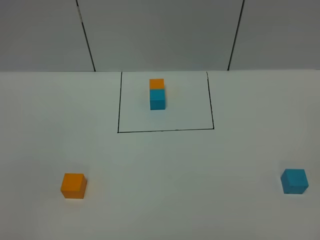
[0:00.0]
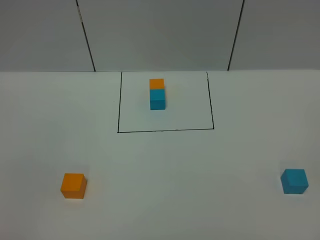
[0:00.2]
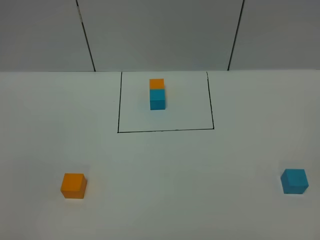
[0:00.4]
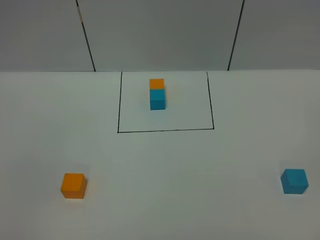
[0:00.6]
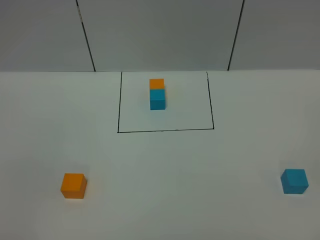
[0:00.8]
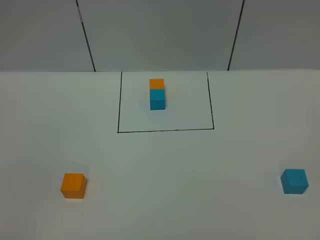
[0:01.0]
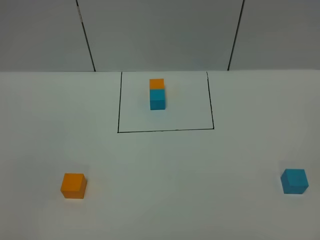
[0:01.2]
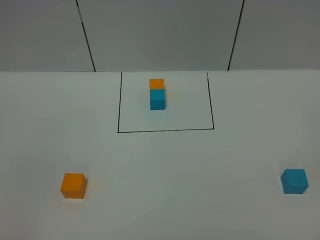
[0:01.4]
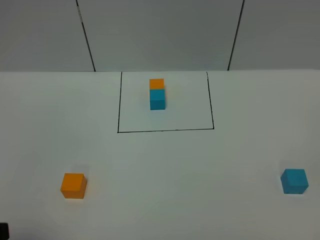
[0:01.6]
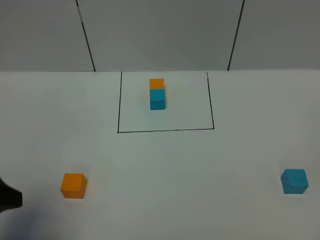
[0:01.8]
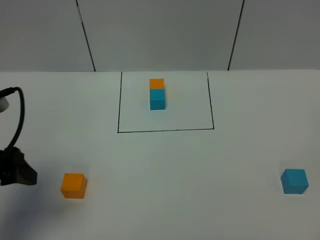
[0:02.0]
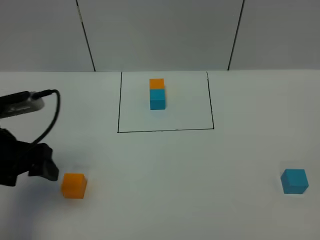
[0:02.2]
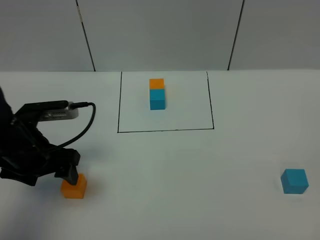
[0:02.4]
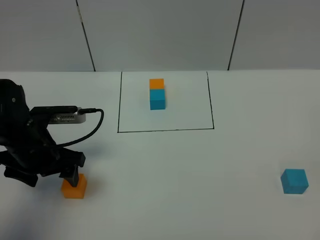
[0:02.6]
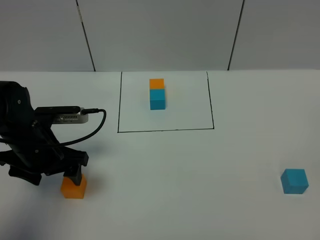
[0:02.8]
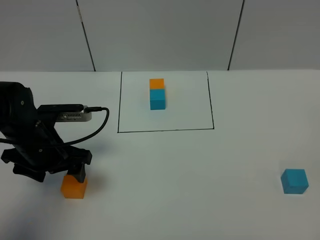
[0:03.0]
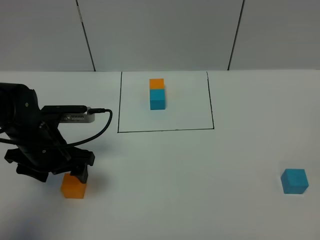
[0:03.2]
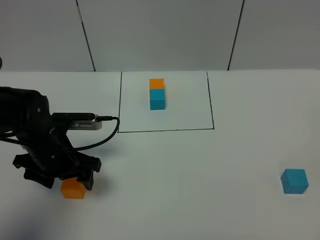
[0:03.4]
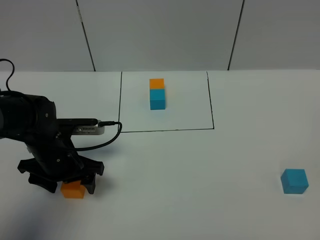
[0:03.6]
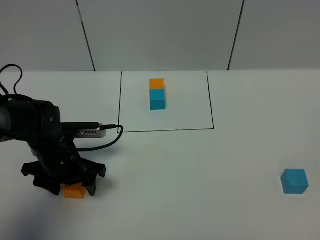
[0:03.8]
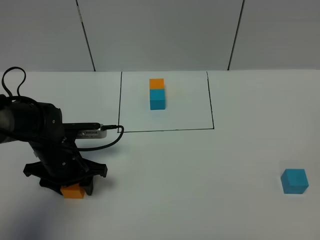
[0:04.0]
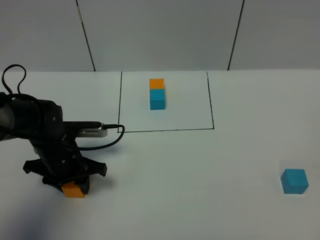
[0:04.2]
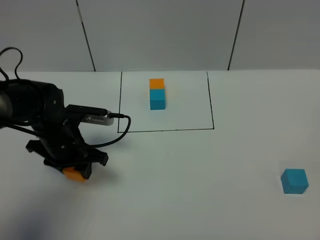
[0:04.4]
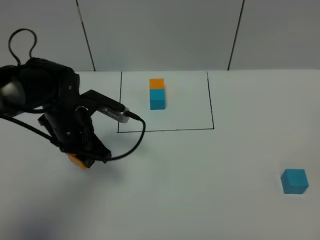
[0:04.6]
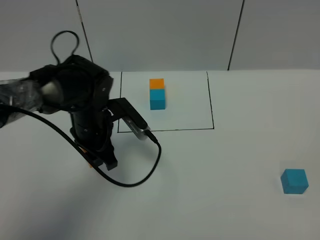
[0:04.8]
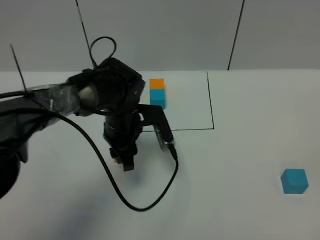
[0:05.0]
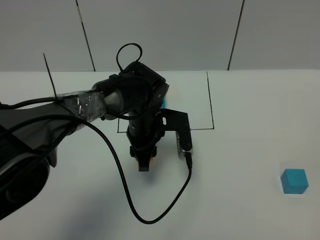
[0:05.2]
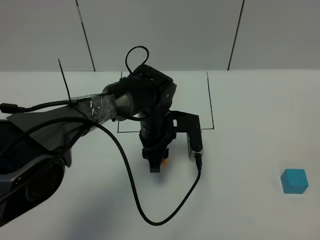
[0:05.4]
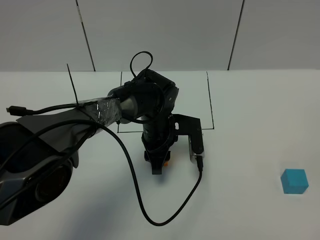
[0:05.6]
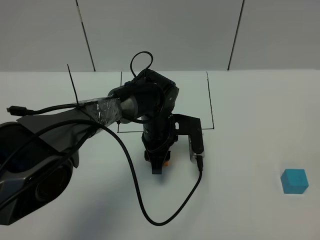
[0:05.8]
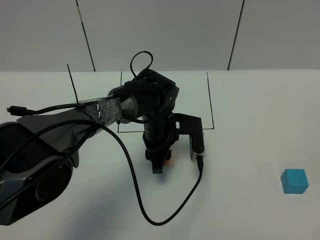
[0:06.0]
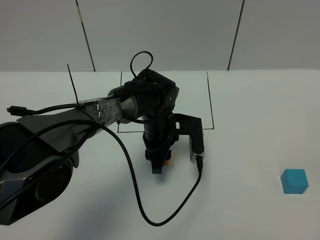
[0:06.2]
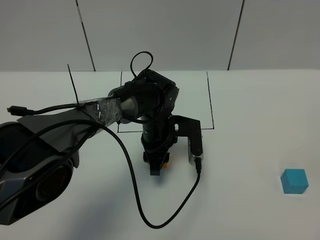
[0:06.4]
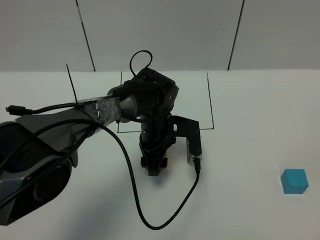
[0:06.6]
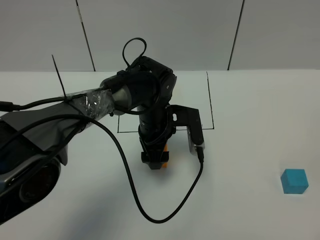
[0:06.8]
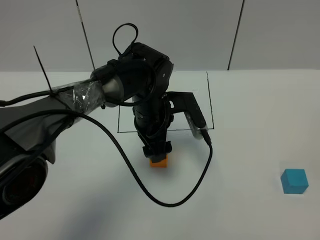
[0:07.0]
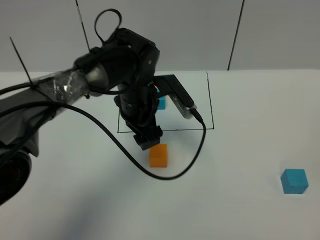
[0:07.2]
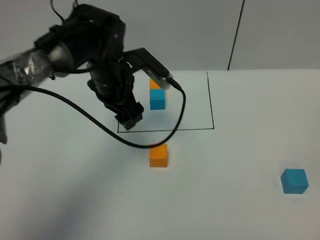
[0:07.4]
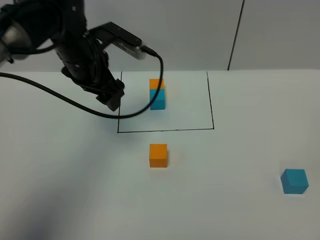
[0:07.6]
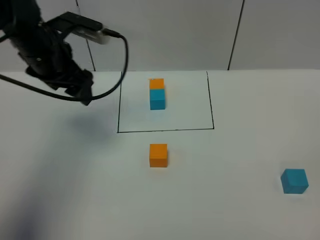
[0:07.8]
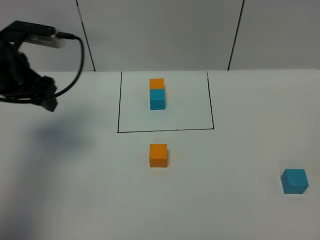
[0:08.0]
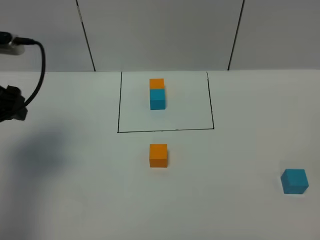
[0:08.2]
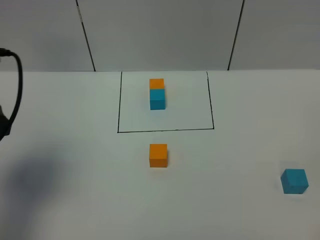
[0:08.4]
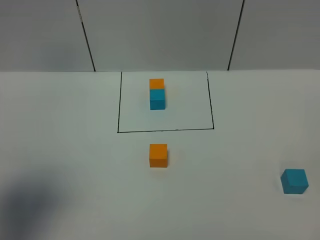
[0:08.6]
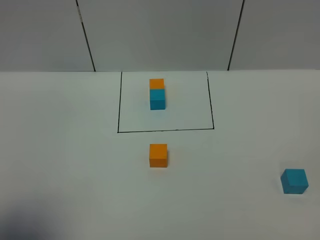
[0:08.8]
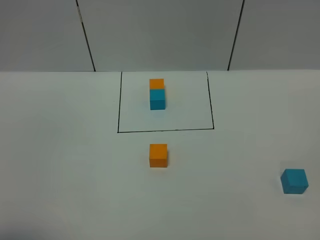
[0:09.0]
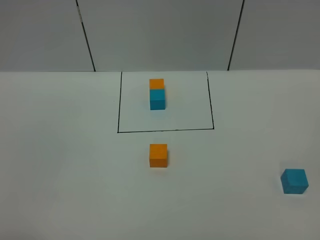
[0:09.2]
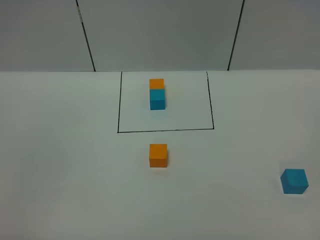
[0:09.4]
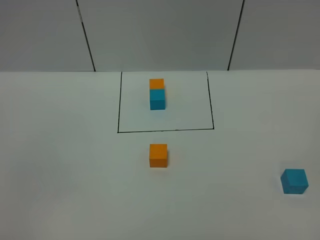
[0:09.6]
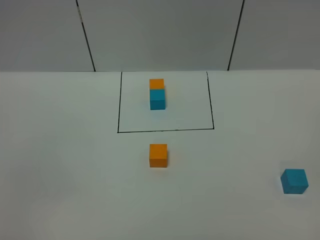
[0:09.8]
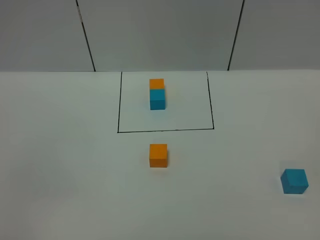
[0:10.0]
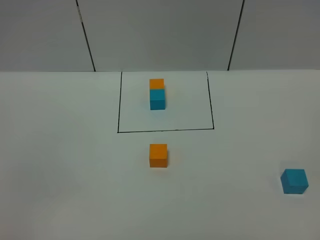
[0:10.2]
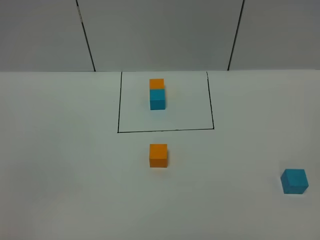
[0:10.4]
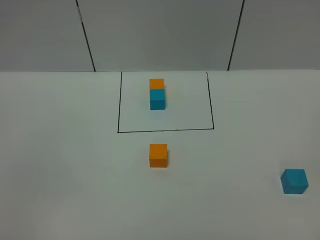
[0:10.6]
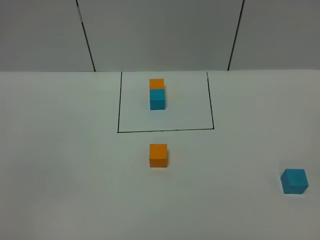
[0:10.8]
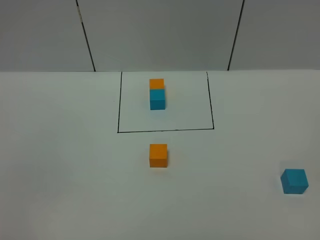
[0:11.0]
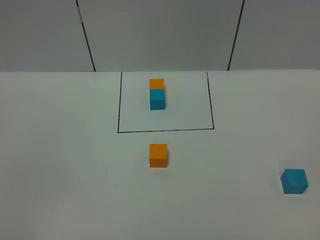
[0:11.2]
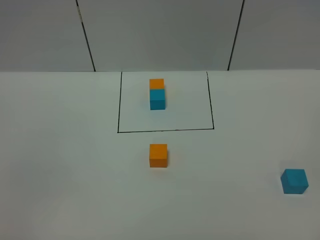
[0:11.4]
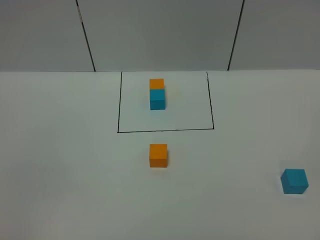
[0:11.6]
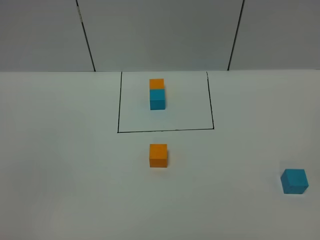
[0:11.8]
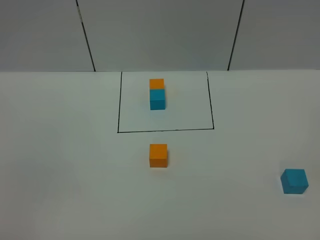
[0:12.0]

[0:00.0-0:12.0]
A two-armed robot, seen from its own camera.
Task of the whole recording: According to the building block template in front, assemble the scattered blocks together.
Step, 0:01.6 to 0:07.8: Put the orange cube in the center of the table.
0:01.6 to 0:03.0: The left gripper shifts approximately 25 cm forward and downward.
0:03.0 to 0:04.4: The left gripper closes up.
0:04.4 to 0:06.0: The left gripper heads to the right, covering some 20 cm.
0:06.0 to 0:07.6: The left gripper heads upward and to the left, covering some 20 cm, and opens.
0:07.6 to 0:09.0: The left gripper shifts about 40 cm backward and to the left.
0:10.4 to 0:12.0: Neither gripper changes place.

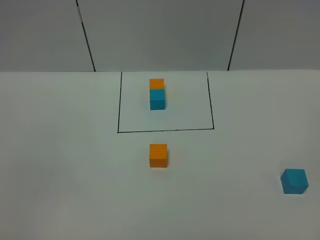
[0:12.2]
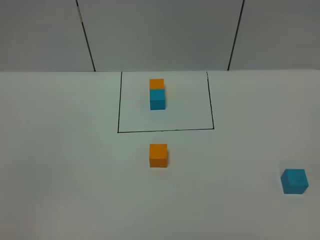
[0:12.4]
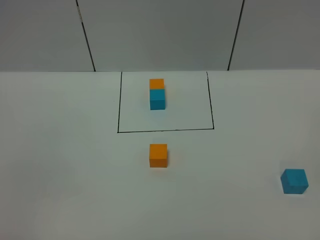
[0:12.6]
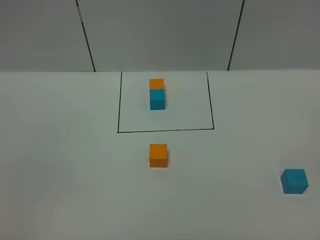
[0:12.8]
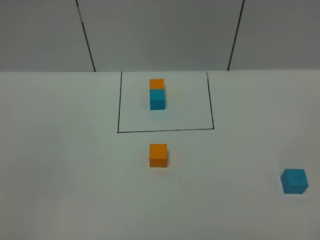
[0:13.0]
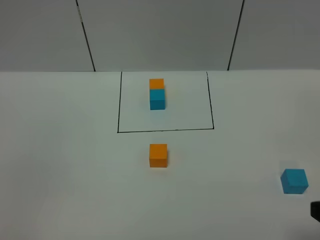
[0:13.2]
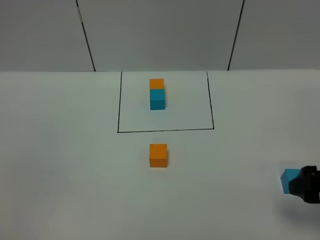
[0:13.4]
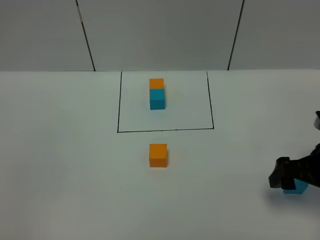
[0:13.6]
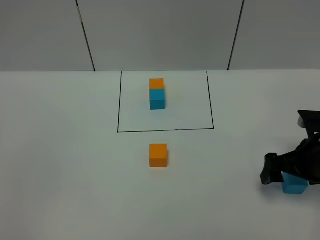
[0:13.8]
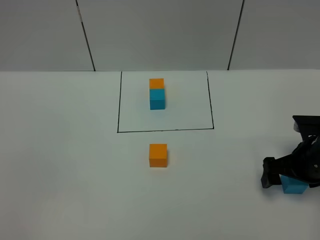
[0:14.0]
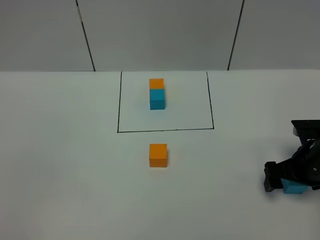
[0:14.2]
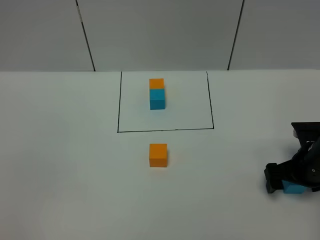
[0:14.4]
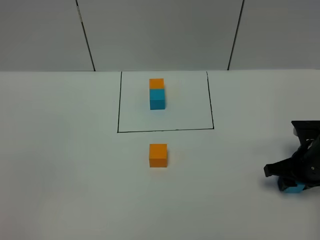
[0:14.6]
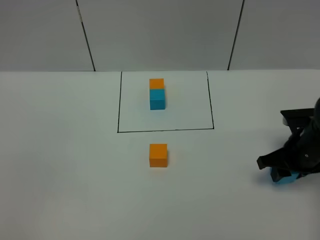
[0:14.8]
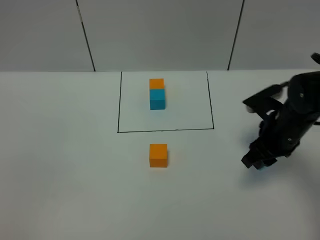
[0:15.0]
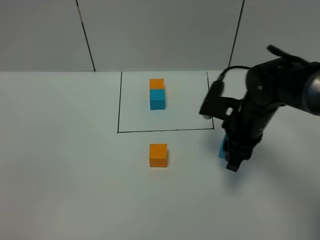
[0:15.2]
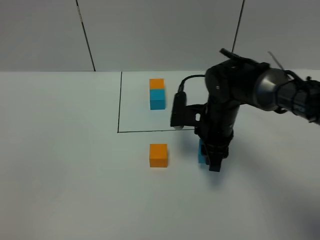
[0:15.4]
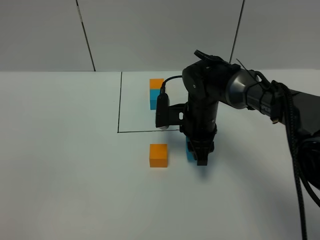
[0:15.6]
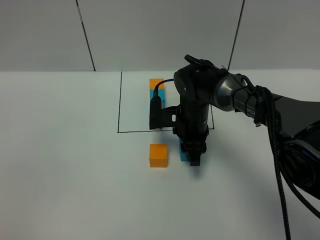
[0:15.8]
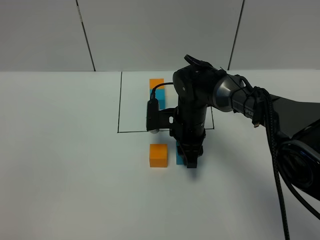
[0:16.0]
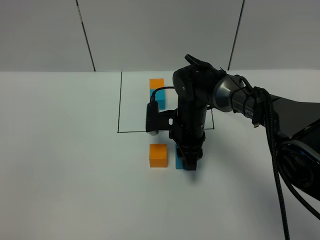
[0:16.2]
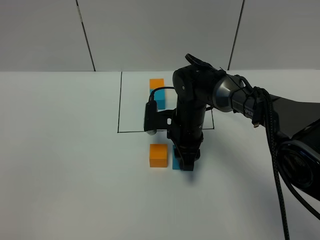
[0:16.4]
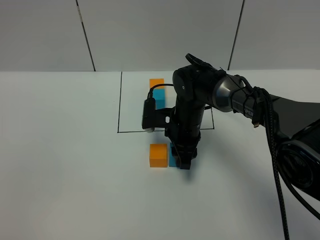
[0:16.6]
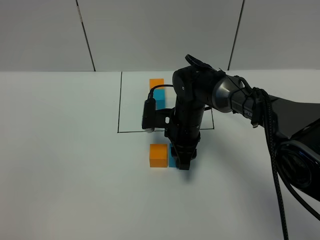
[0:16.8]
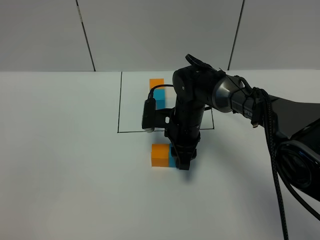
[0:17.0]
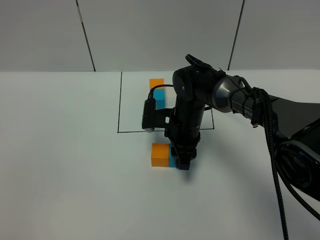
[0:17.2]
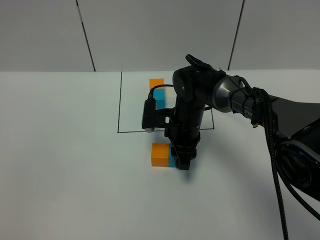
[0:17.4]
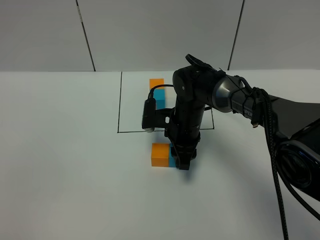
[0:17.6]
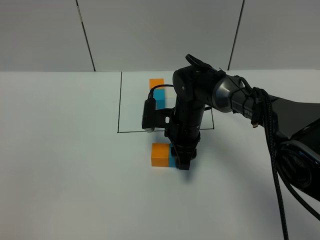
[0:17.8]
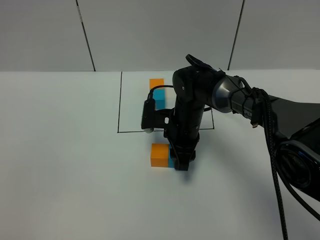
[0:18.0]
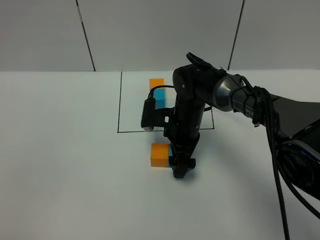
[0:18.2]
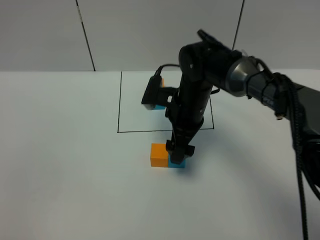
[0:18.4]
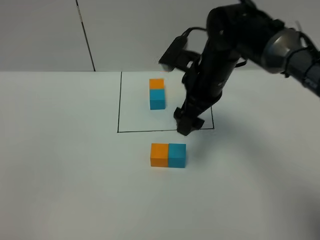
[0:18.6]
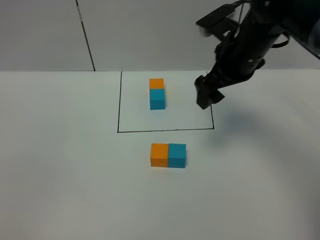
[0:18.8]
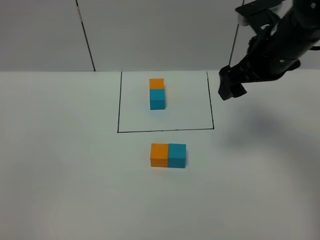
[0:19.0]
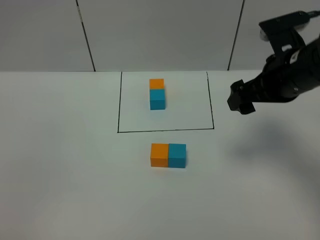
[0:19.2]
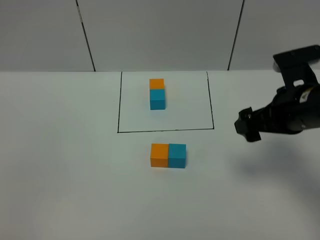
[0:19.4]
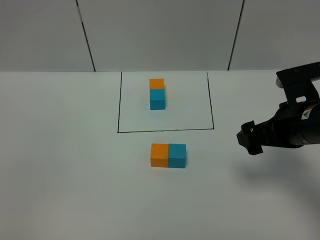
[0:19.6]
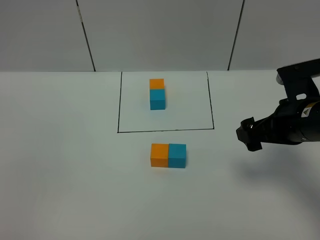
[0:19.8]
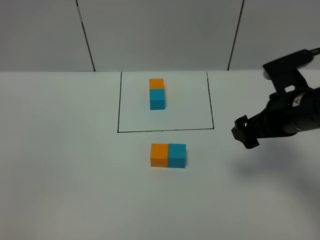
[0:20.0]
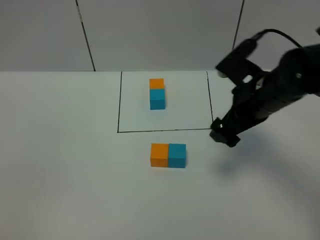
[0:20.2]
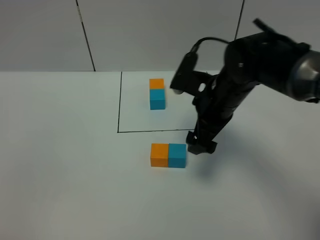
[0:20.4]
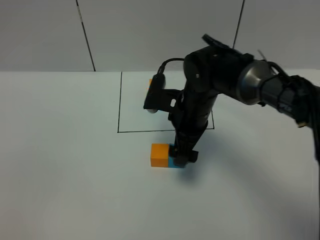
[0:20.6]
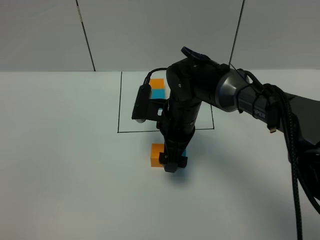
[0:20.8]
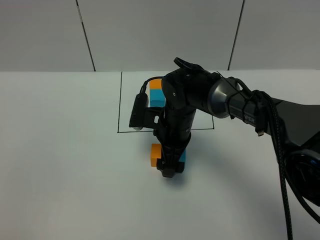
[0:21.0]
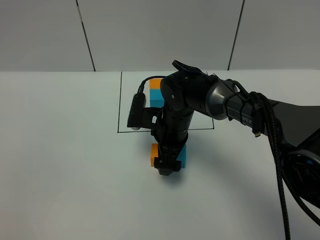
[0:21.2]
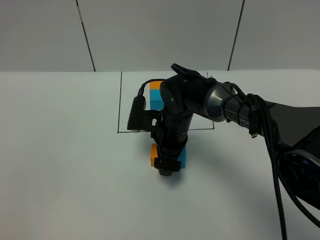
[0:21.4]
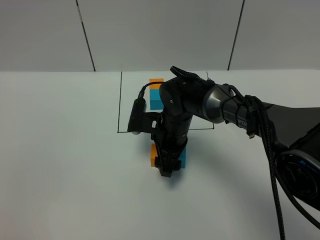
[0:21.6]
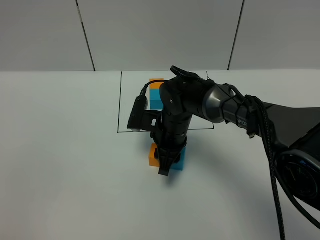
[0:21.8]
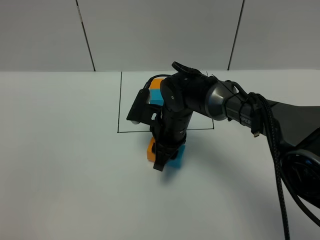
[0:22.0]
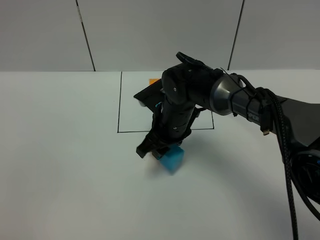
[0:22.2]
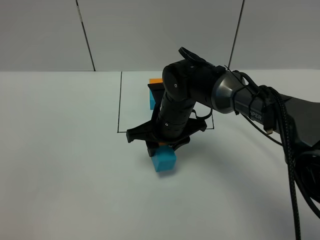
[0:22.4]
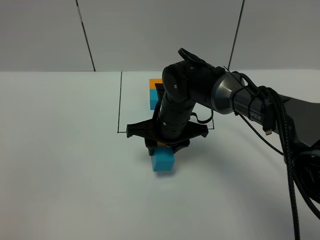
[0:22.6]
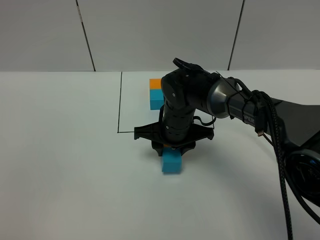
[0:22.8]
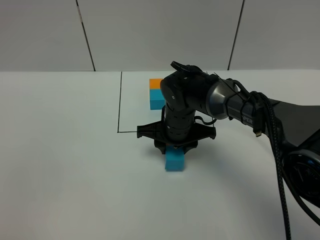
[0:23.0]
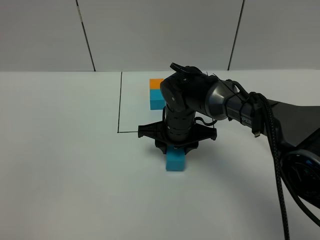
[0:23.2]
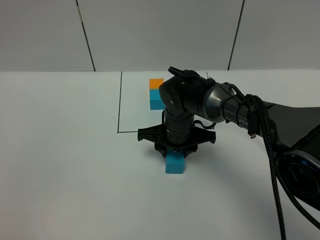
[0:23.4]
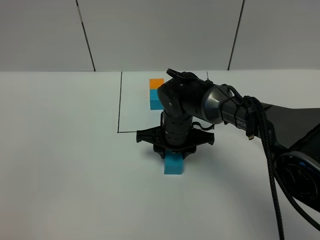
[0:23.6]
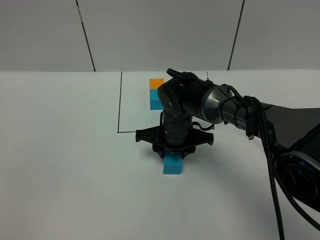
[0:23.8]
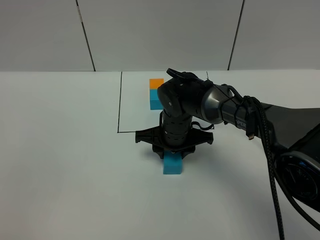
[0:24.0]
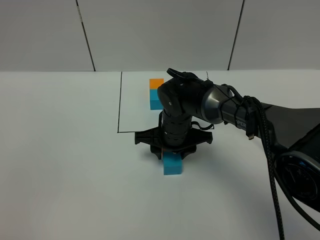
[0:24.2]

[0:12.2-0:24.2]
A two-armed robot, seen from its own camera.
Task of the whole recording: According to the building block template in front, assemble the scattered blocks together.
Step, 0:12.2 to 0:19.8: Put the blue cube on the right of the orange cube.
0:12.2 to 0:13.8: The right gripper heads forward, covering about 30 cm.
0:13.8 to 0:15.2: The right gripper heads to the left and forward, covering some 15 cm, and closes its fingers.
0:15.2 to 0:16.6: The right gripper is displaced to the left and downward by approximately 10 cm.
0:16.6 to 0:18.2: The right gripper opens up.
0:18.2 to 0:19.8: The right gripper is displaced to the right, backward and upward by some 25 cm.
0:19.8 to 0:21.2: The right gripper goes roughly 25 cm to the left, downward and forward.
0:21.2 to 0:22.6: The right gripper closes.
0:22.6 to 0:24.2: There are only small adjustments of the grippers.
